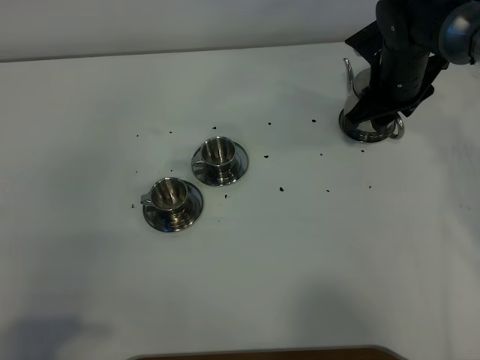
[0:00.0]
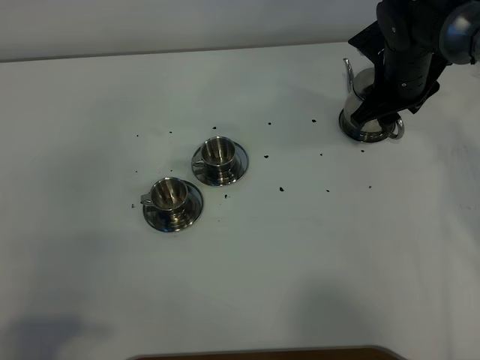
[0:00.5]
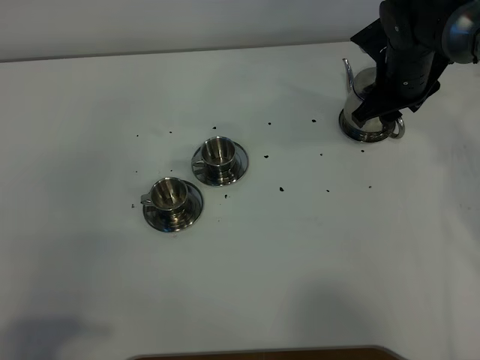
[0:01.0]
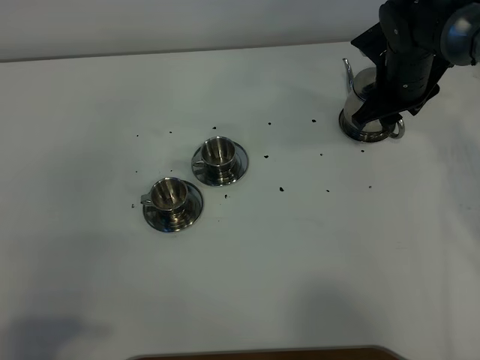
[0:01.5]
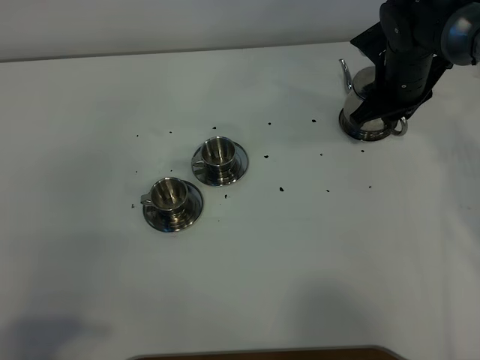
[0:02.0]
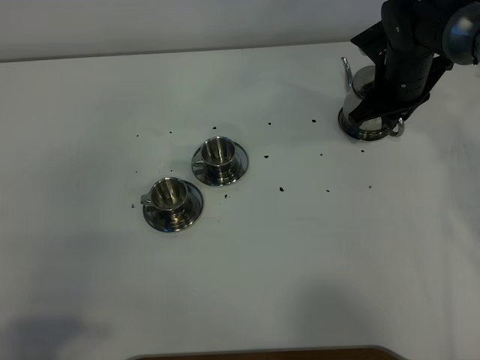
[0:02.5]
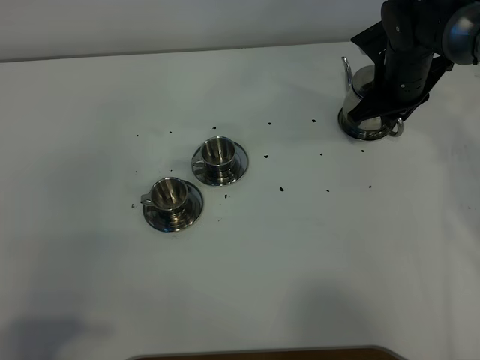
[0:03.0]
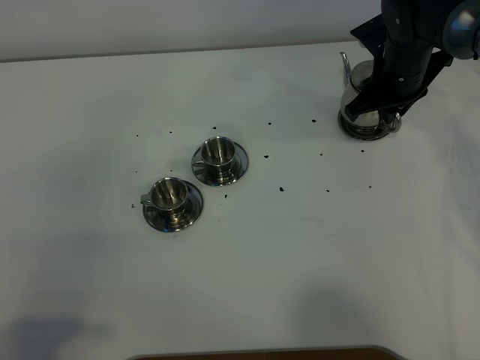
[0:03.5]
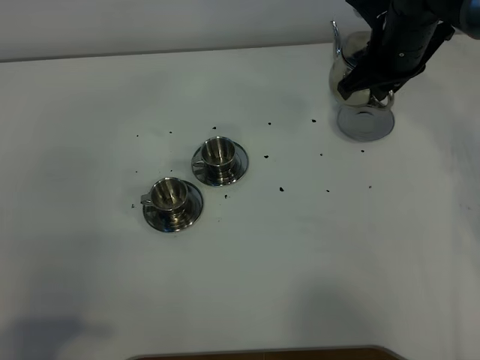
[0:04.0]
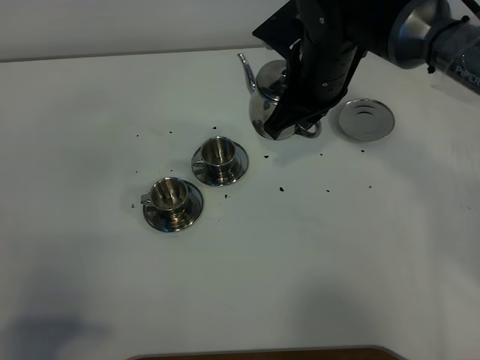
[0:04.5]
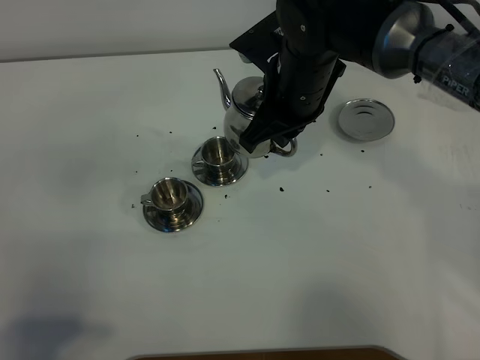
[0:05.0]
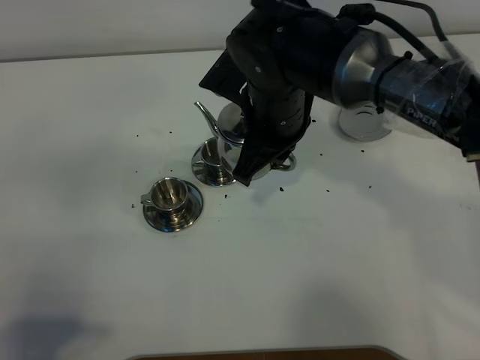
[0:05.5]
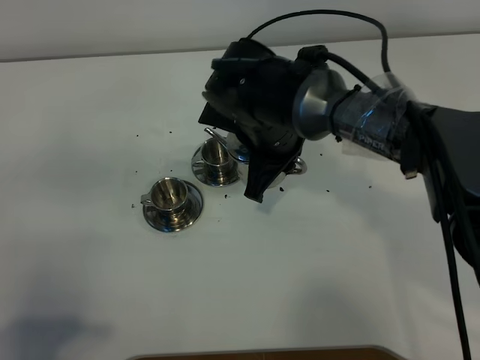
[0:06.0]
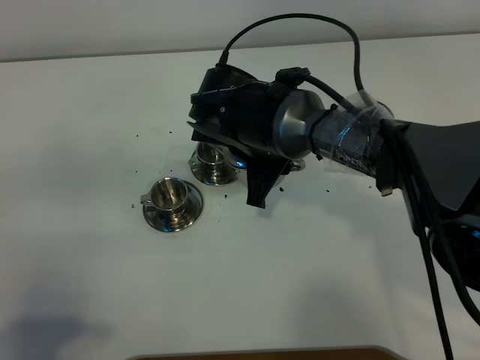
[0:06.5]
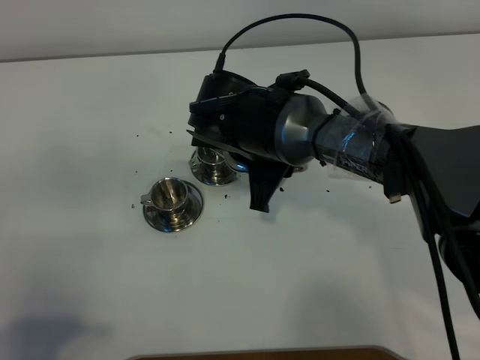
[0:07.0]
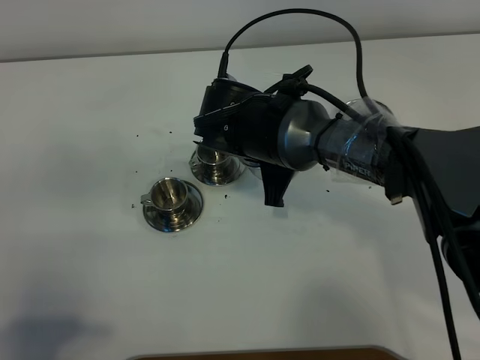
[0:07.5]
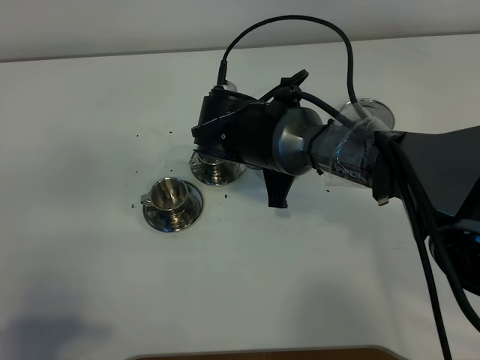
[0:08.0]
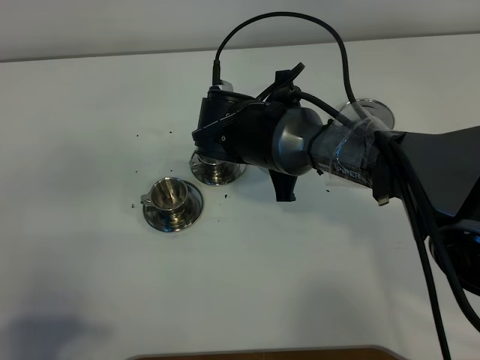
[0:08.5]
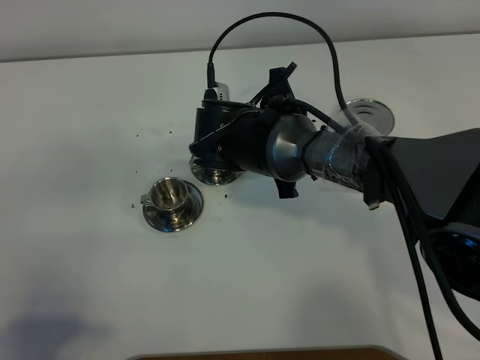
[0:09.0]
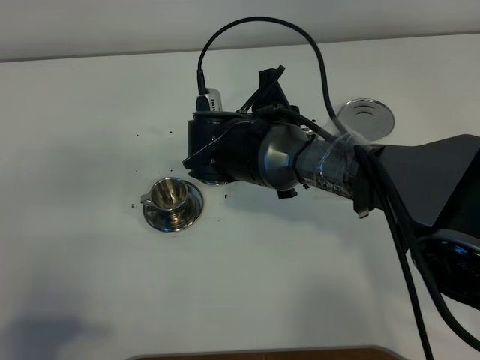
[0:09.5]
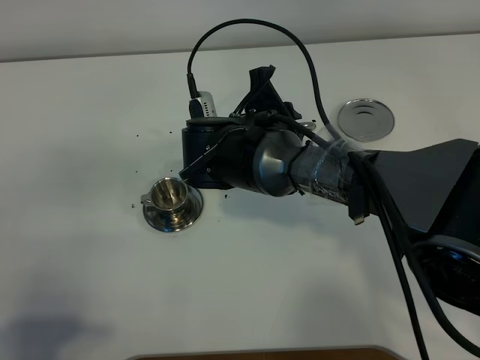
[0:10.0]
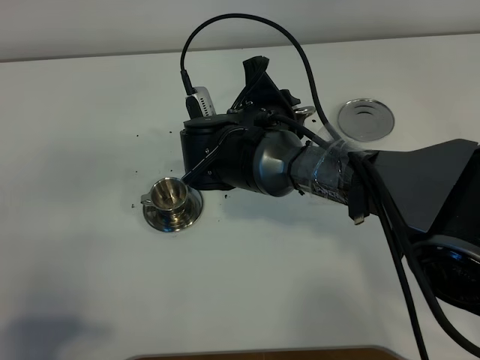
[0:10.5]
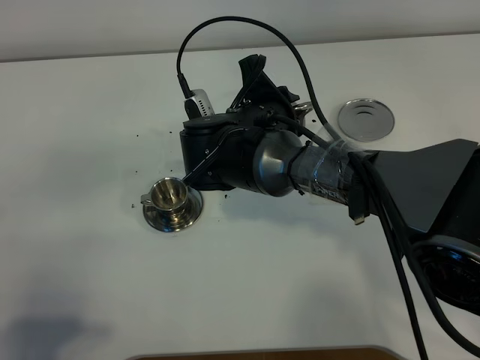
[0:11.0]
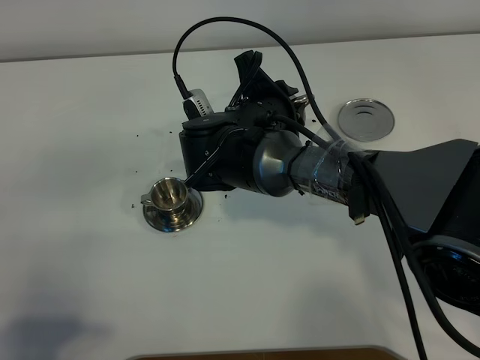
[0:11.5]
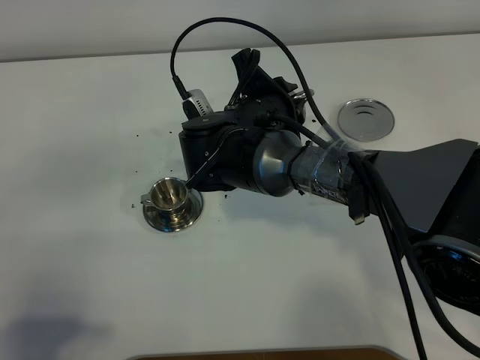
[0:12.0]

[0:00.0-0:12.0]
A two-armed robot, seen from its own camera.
Task of the whole recording: grasp the stainless steel teapot and pour the tea into the two stainless steel teacups one by one, put the stainless steel teapot back in its original place.
Step, 0:00.0 to 0:03.5: Pick up the teapot with the right gripper.
0:00.0 to 0:02.0: The right gripper closes up.
0:02.0 to 0:04.0: The right gripper heads upward, covering roughly 5 cm.
0:04.0 to 0:06.0: The right gripper moves to the left and backward, approximately 20 cm.
0:10.0 to 0:12.0: The grippers make only small movements.

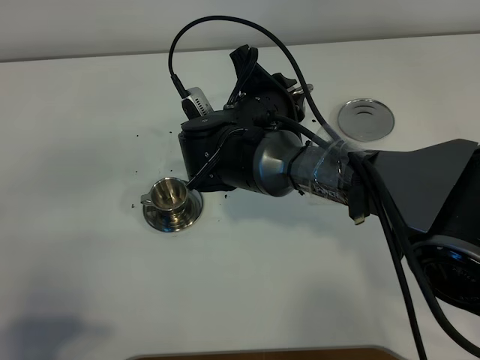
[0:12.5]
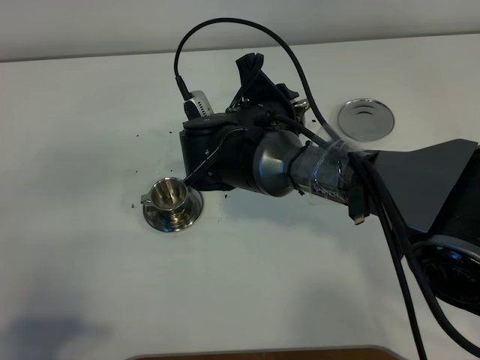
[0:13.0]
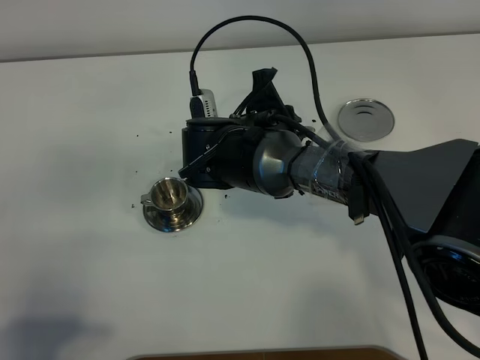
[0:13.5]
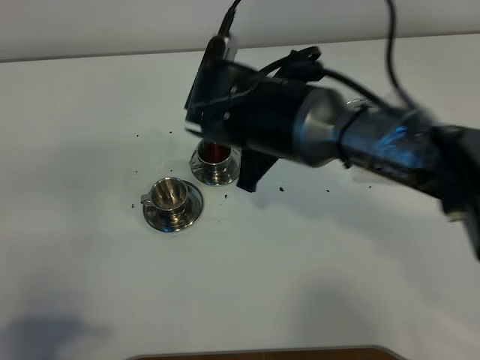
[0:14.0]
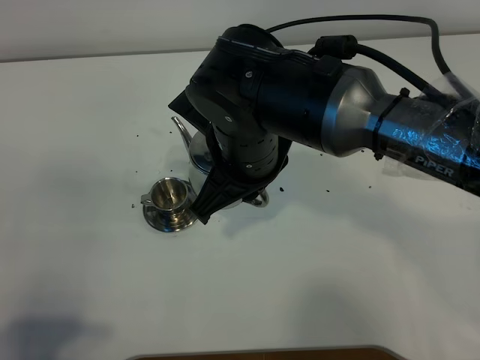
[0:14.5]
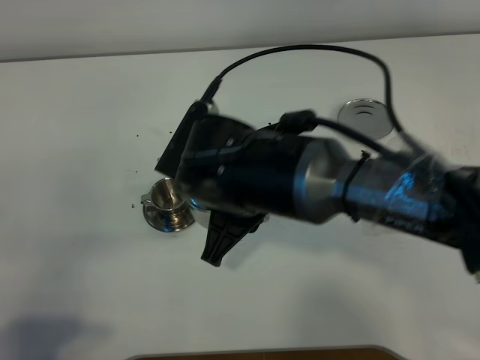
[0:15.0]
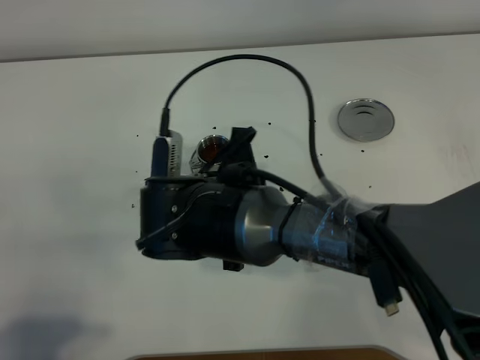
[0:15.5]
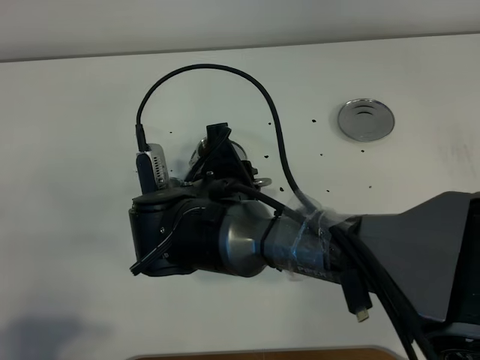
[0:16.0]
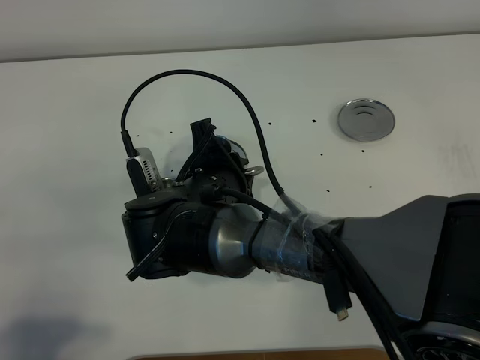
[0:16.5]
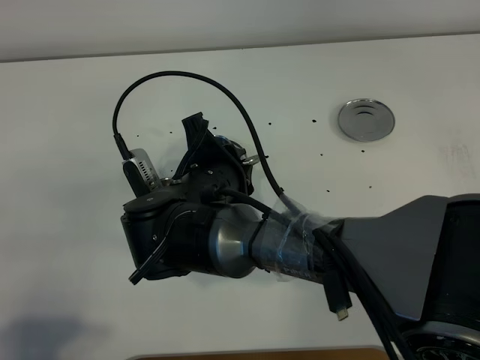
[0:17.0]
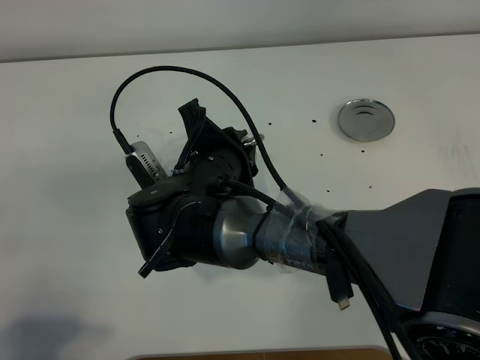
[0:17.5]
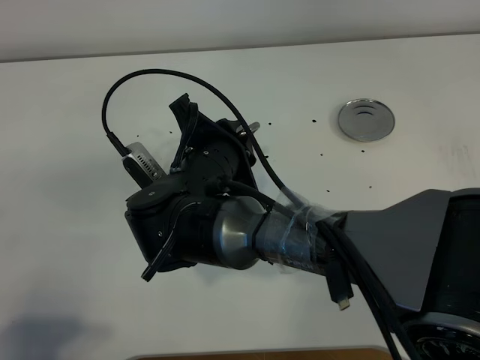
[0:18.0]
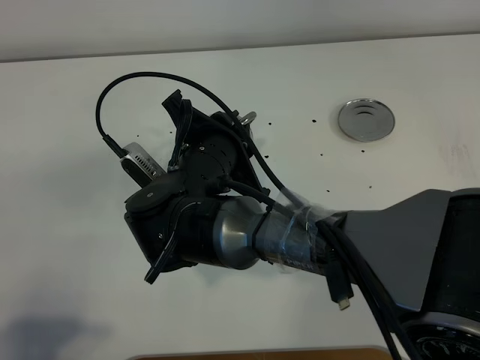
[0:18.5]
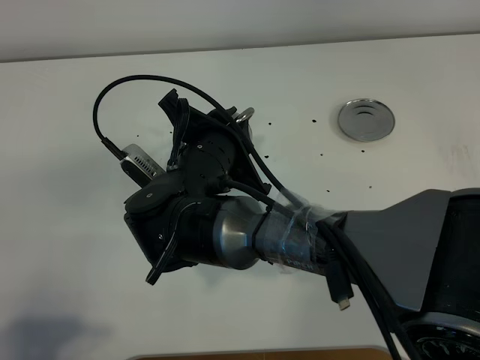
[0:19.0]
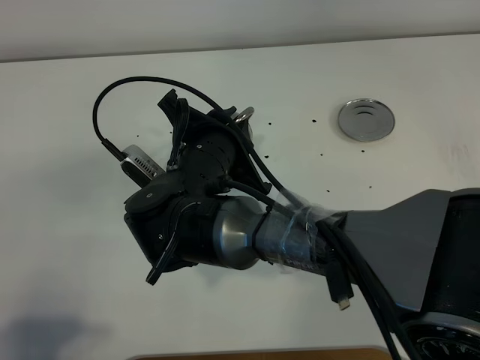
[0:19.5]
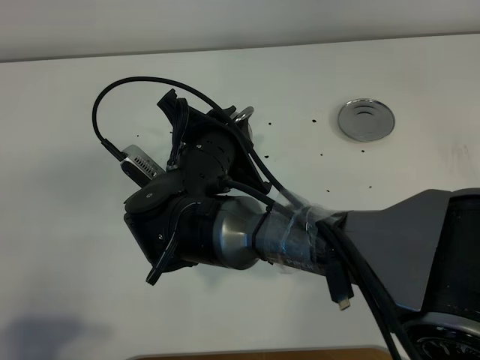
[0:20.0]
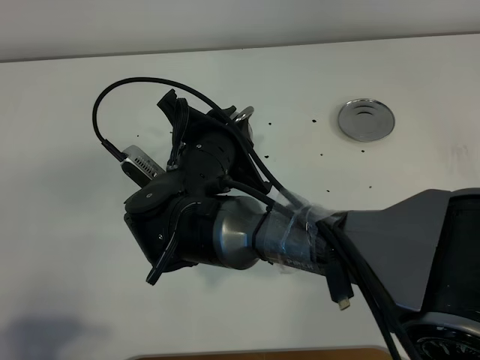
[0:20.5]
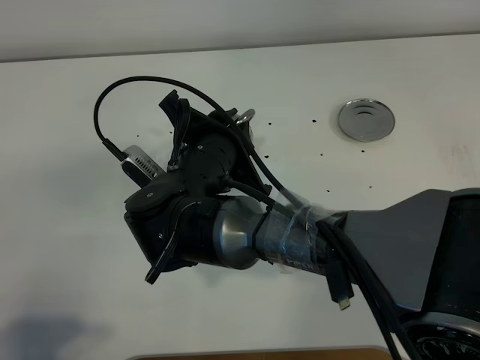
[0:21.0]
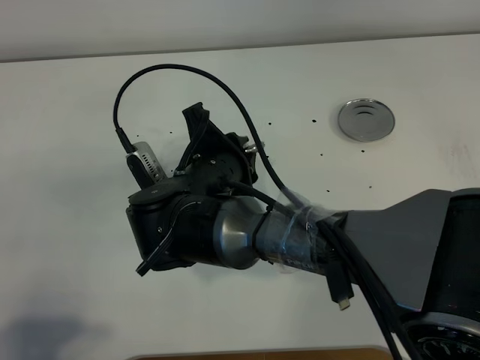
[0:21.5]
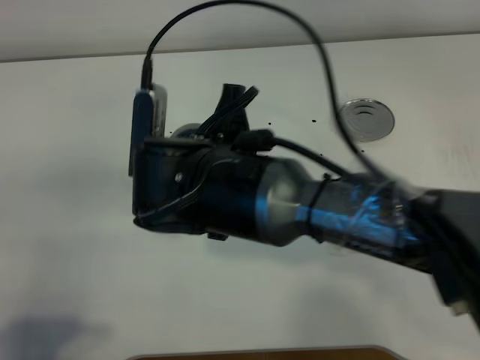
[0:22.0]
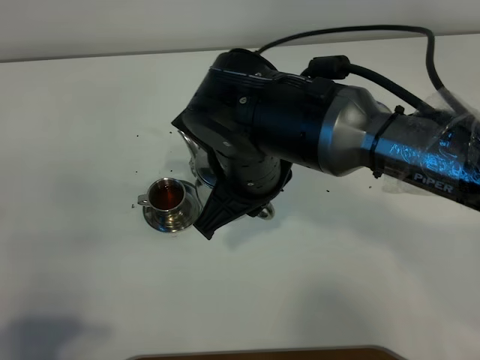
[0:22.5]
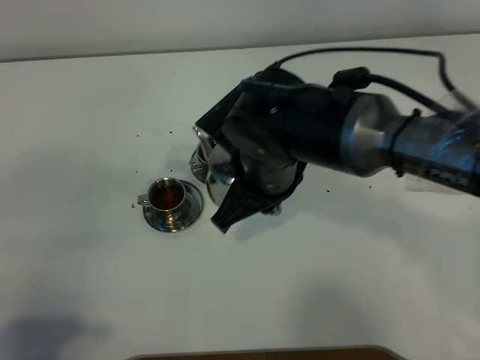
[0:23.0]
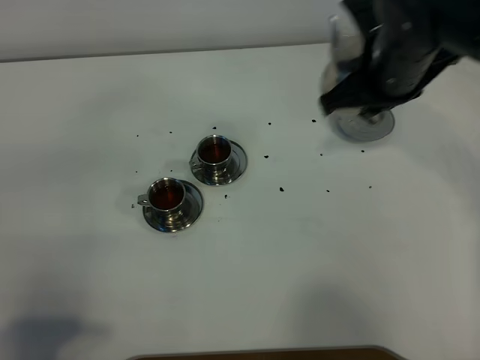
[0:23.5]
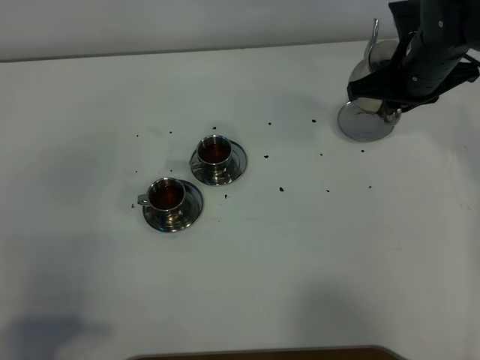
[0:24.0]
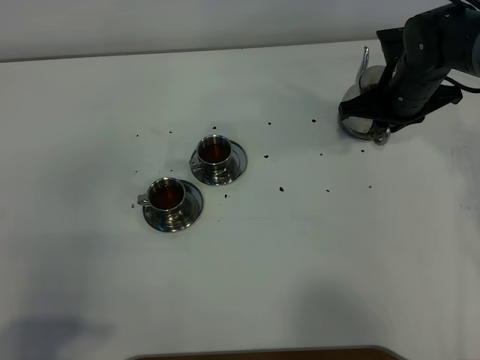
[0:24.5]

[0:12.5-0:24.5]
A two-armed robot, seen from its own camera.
Task of the whole recording: grasp the stainless steel teapot and pour the tea into the two stainless steel teacups one by one, put the stainless steel teapot back in its original place.
Step, 0:12.5 to 0:21.5: Pour tea into the teacup with the right gripper.
0:12.5 to 0:14.5: The right gripper heads backward and upward, covering approximately 10 cm.
0:14.5 to 0:16.5: The right gripper heads downward and to the left, covering about 10 cm.
0:18.5 to 0:20.5: Both grippers stay about where they are.
0:20.5 to 0:22.5: The right gripper is displaced to the right and upward by roughly 10 cm.
0:22.5 to 0:24.5: The right gripper goes some 25 cm to the right and forward.

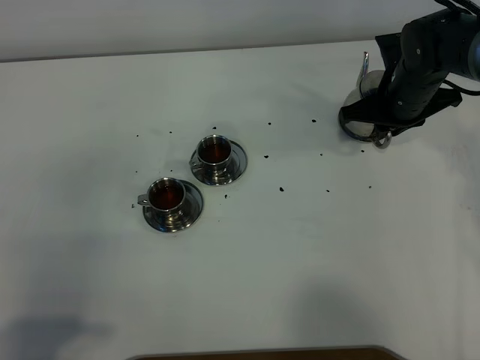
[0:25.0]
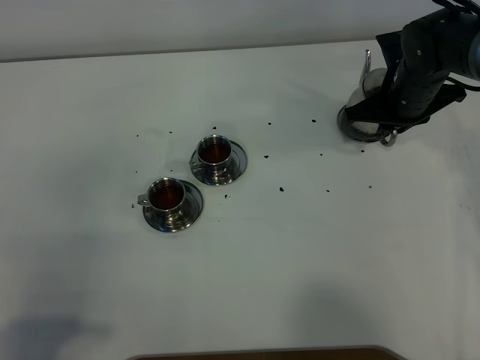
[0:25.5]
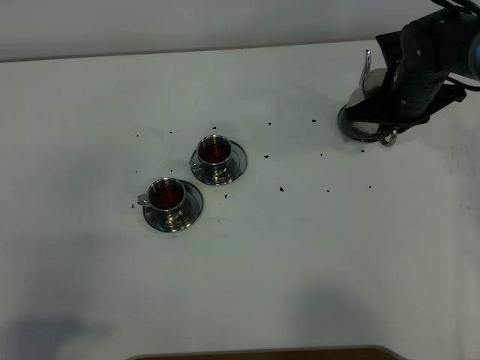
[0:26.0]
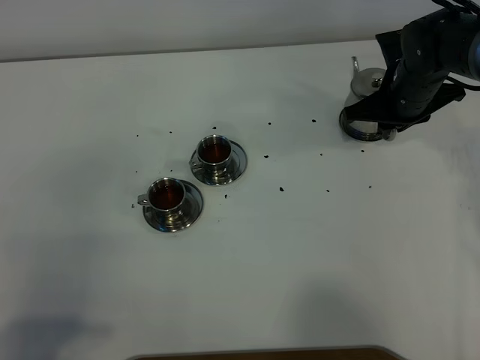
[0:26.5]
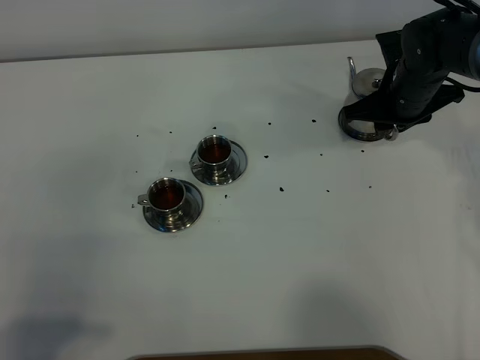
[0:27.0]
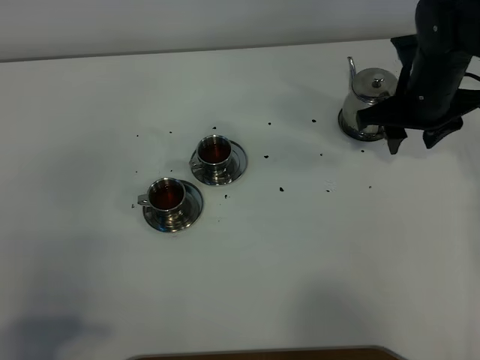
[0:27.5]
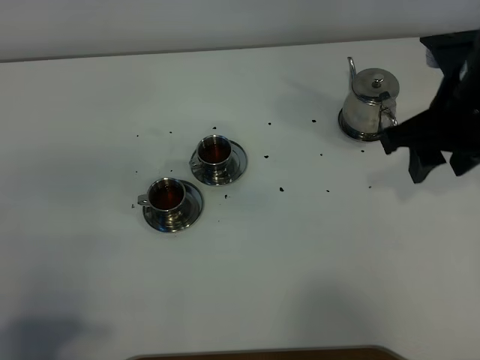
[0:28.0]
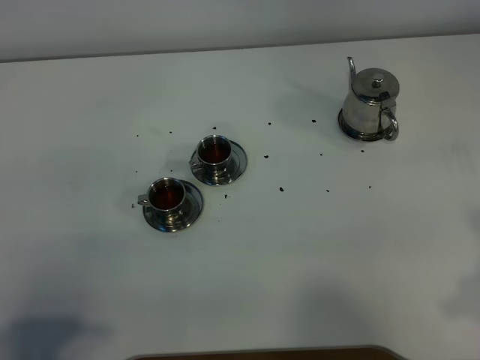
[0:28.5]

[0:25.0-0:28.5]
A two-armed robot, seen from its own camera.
Task of the whole recording: grasp the stainless steel teapot and pour the tea into the two stainless steel teacups one by one, put the stainless steel teapot back in its original place.
0:25.0 to 0:27.0: The right gripper opens up.
0:27.0 to 0:28.5: The right gripper is displaced backward and upward by about 35 cm, and opens.
